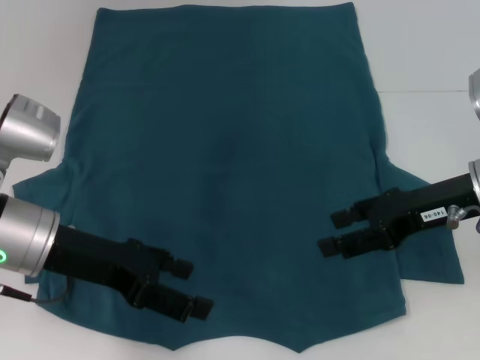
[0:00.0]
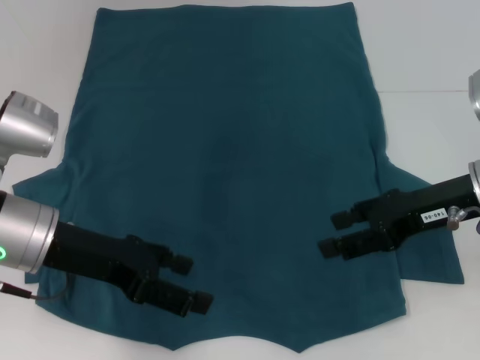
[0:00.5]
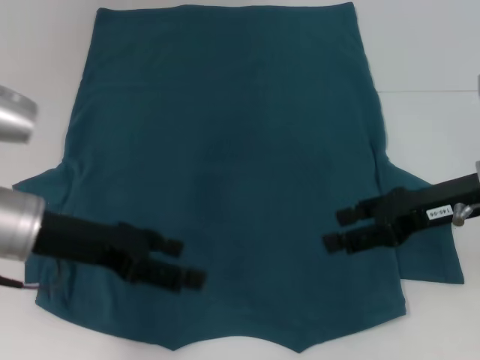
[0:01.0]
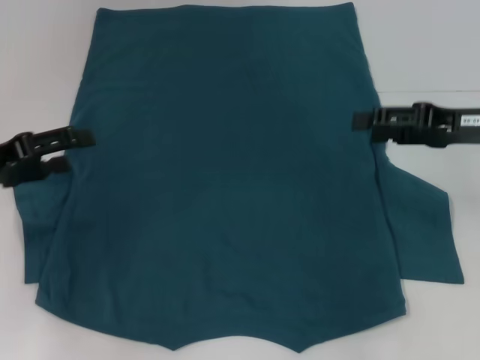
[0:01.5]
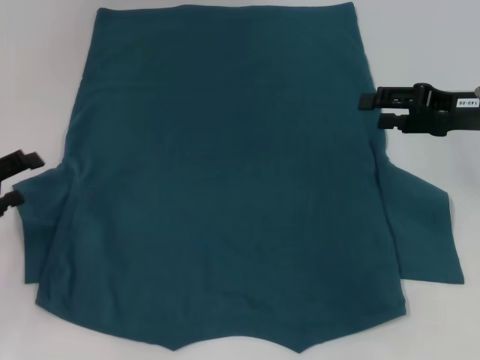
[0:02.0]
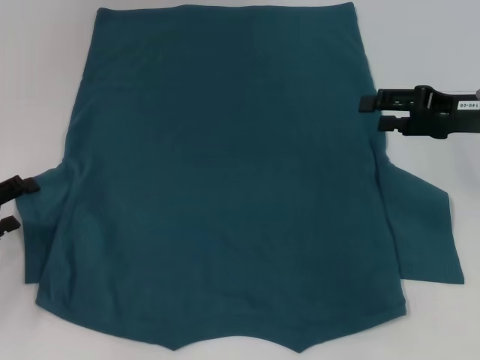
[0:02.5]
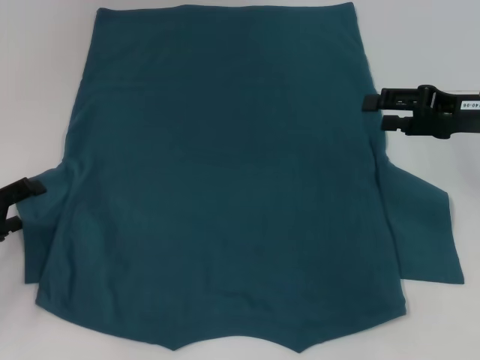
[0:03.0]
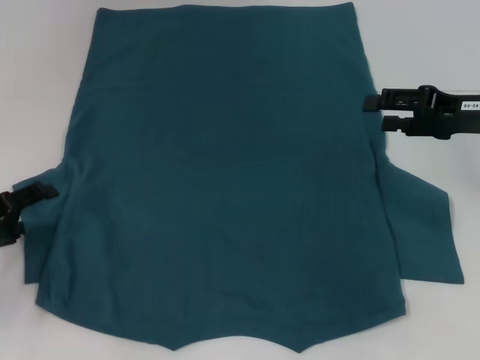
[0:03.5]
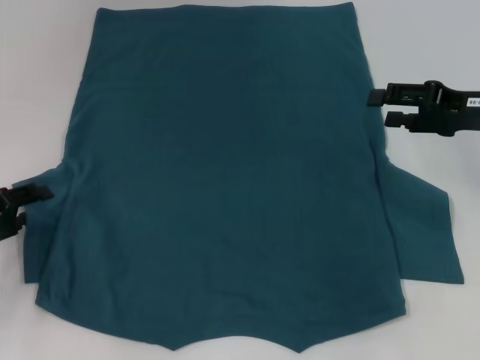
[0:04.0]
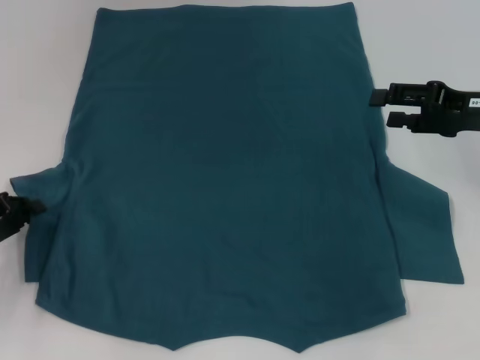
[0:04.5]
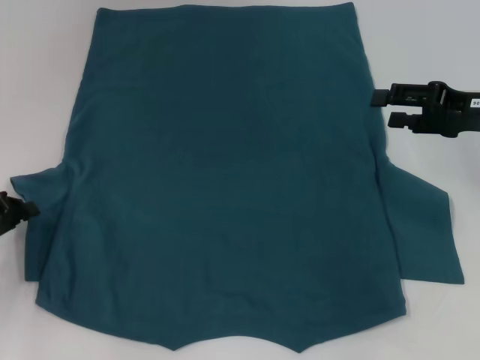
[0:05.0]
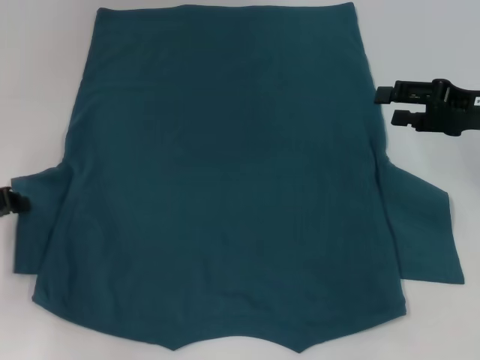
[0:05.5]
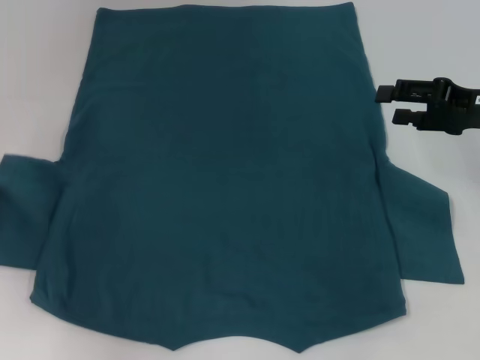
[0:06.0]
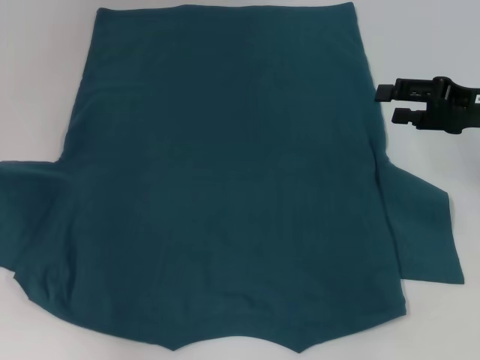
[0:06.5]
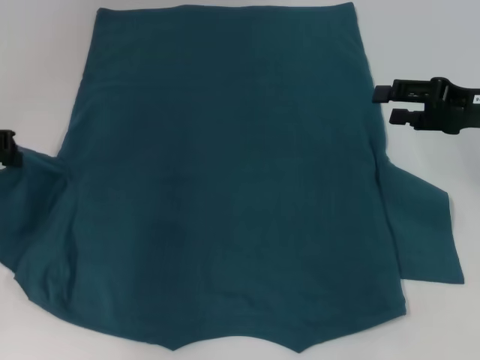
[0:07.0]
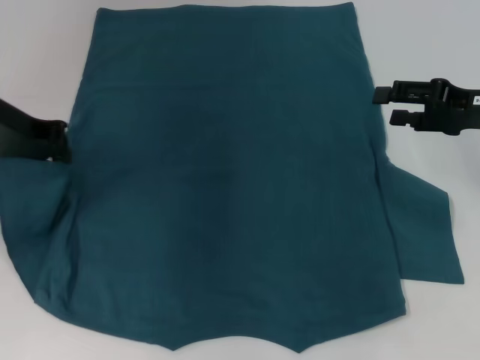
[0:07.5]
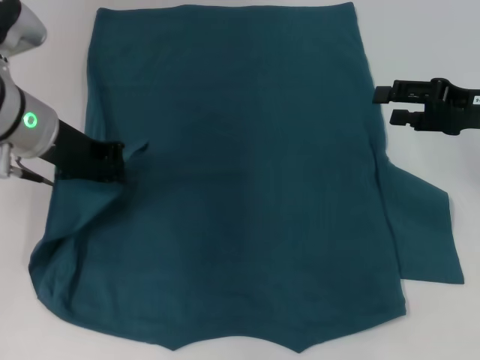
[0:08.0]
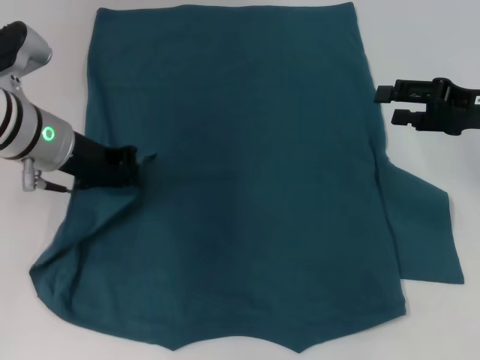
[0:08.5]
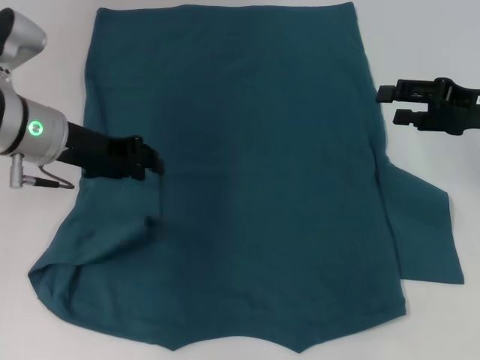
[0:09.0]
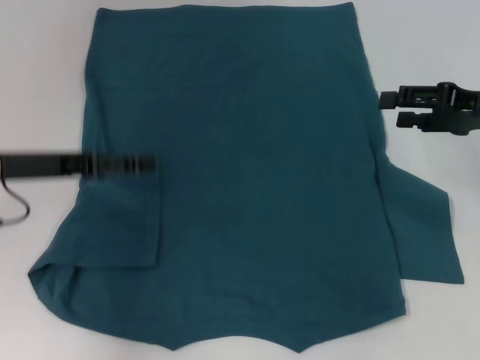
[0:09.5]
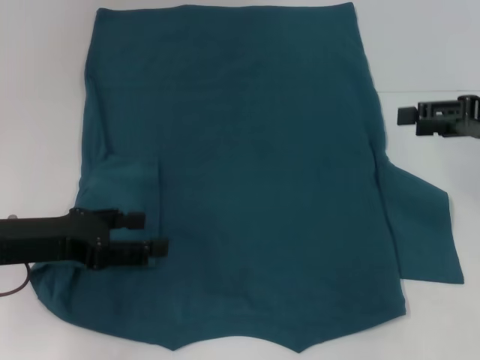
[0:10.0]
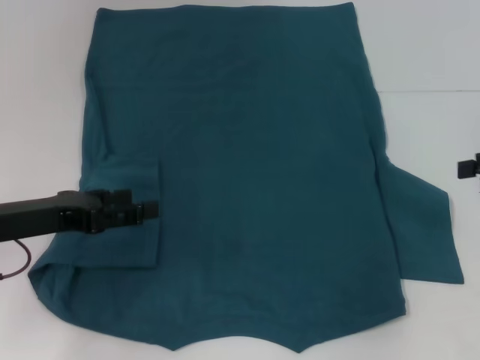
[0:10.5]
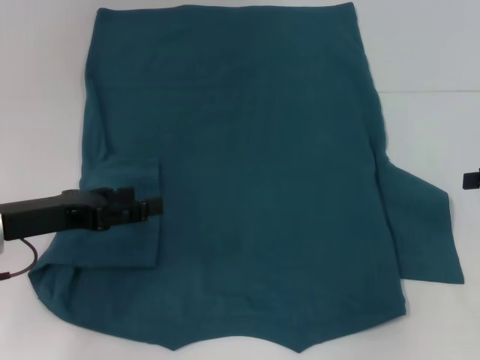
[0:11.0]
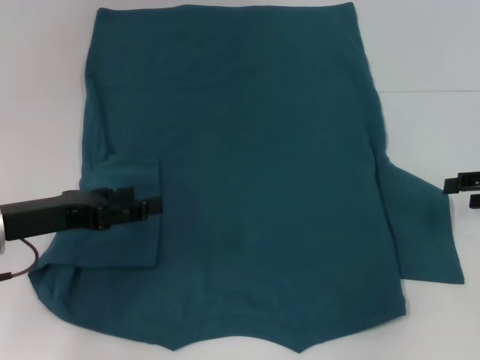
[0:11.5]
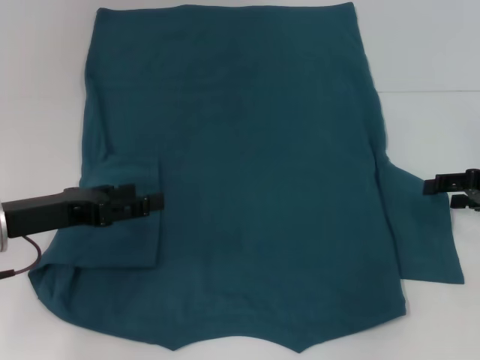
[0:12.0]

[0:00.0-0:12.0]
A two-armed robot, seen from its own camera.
Step, 0:00.0 to 0:09.0: Fold the bottom left sleeve with your left hand.
0:00.0 to 0:02.0: The right gripper goes some 10 cm forward and to the right, while the left gripper moves to the left, some 15 cm.
0:02.0 to 0:04.0: The grippers make only small movements.
0:04.0 to 0:06.0: The left gripper heads upward, covering approximately 5 cm, and closes its fingers.
0:06.0 to 0:08.0: The left gripper moves to the right, roughly 15 cm.
0:08.0 to 0:10.0: The left gripper moves backward, downward and to the left, approximately 15 cm, and opens its fingers.
0:10.0 to 0:12.0: The right gripper heads downward, covering about 10 cm.

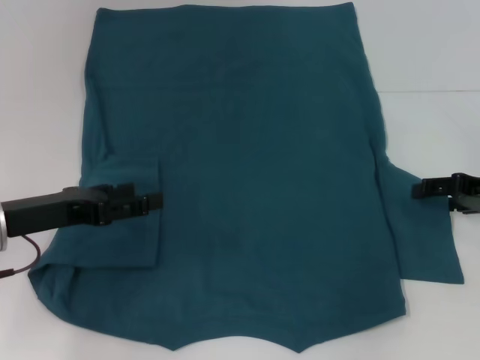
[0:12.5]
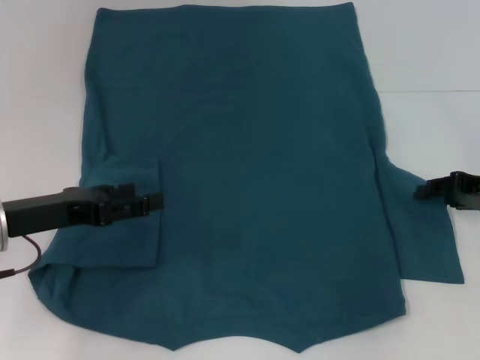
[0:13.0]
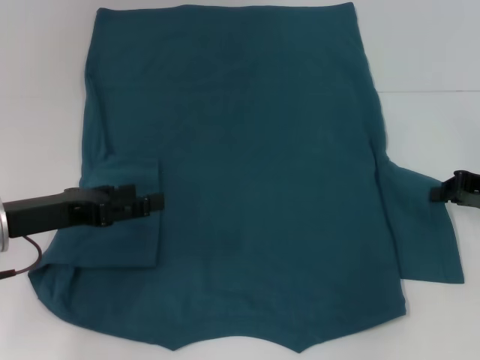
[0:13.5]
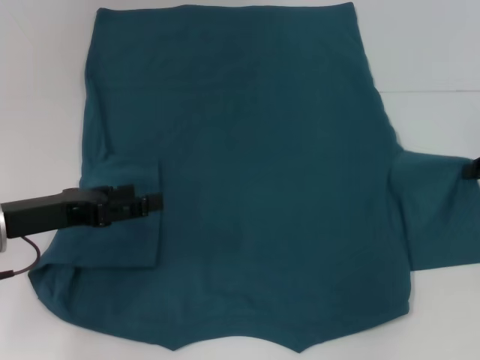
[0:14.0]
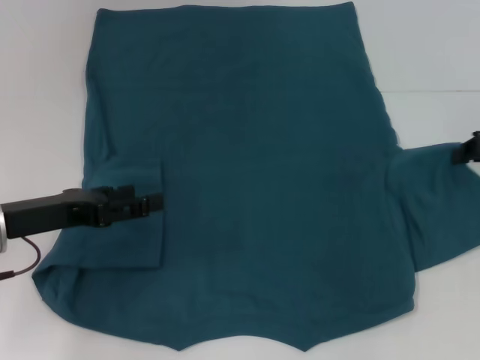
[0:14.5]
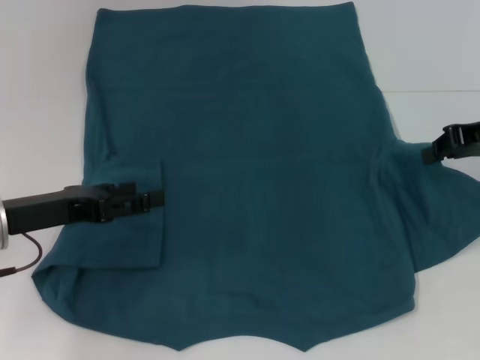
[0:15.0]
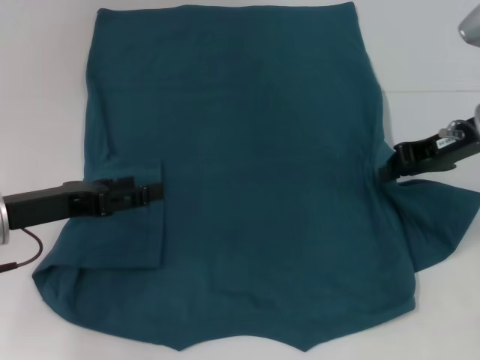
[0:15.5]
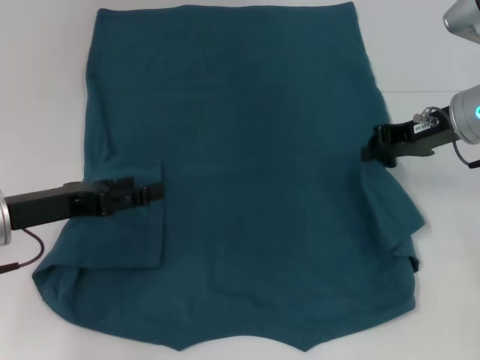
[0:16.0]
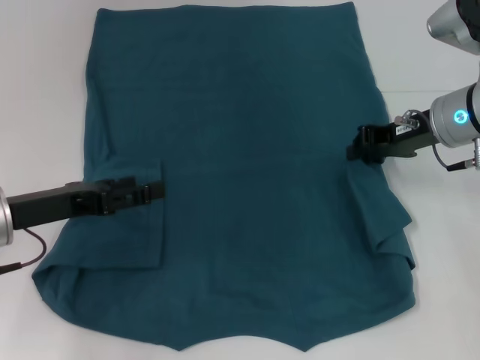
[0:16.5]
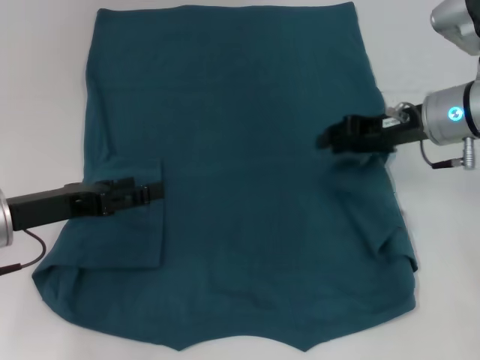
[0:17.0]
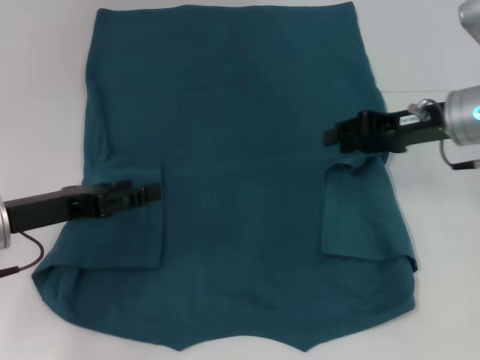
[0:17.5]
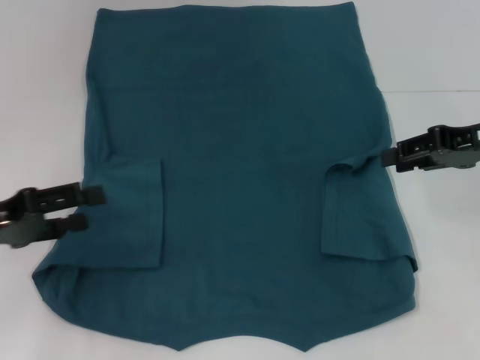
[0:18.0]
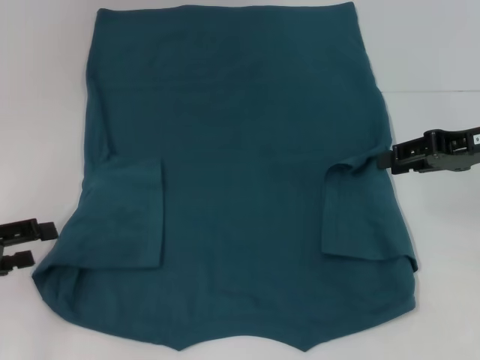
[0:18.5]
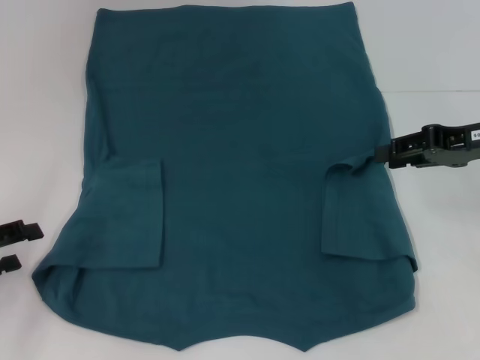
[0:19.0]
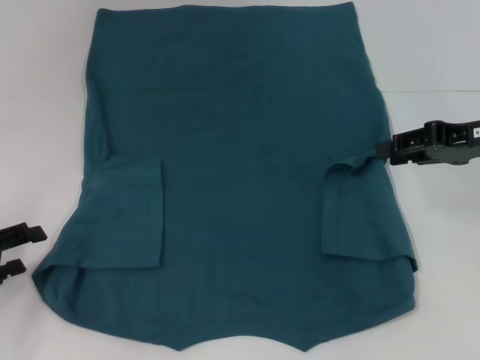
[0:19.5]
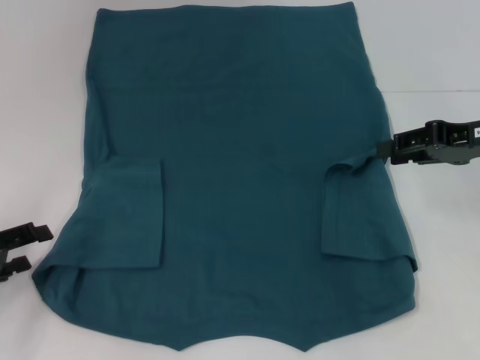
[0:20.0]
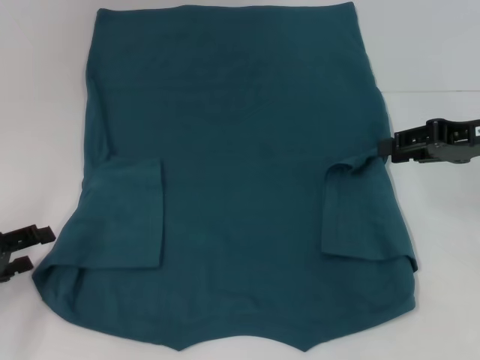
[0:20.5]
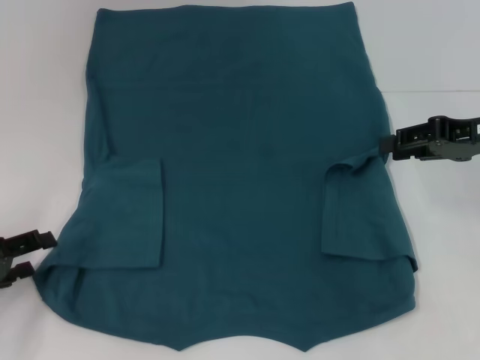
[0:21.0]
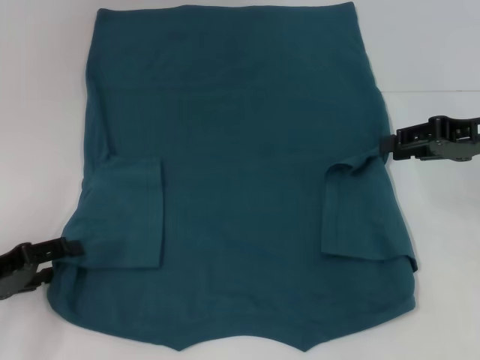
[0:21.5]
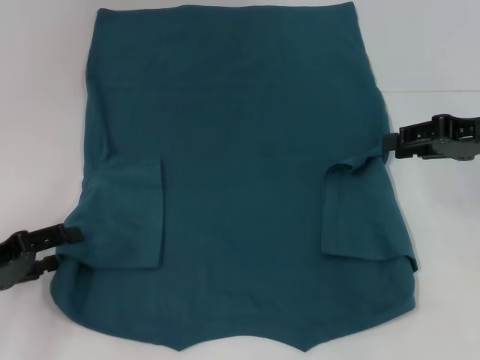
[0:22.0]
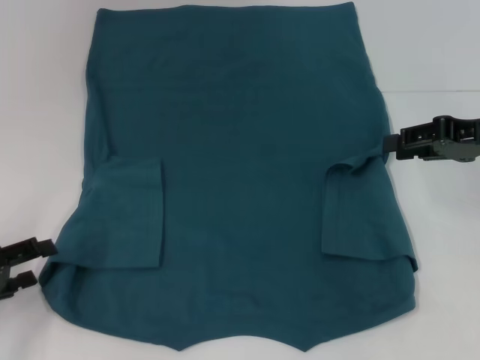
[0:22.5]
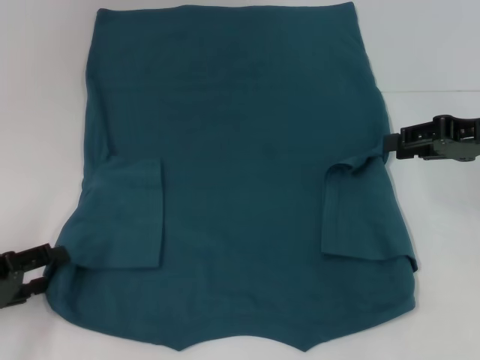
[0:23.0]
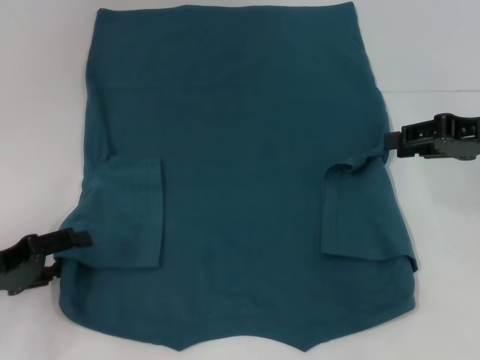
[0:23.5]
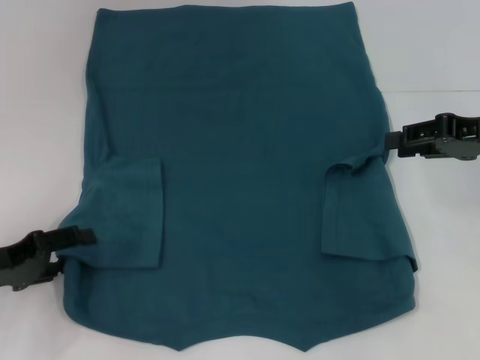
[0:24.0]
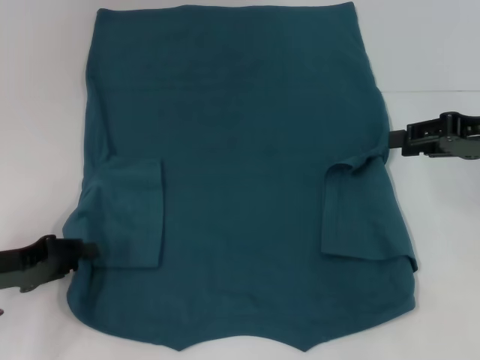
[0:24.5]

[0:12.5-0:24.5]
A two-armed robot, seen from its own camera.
Step, 0:12.5 to 0:17.0: Fold the bottom right sleeve to the right.
0:12.5 to 0:14.5: The right gripper moves upward, roughly 5 cm, and closes its fingers.
0:14.5 to 0:16.5: The right gripper travels to the left by roughly 10 cm.
0:16.5 to 0:18.5: The right gripper moves to the right and backward, some 10 cm, while the left gripper moves to the left, about 10 cm.
0:18.5 to 0:22.5: There are only small adjustments of the grippers.
0:22.5 to 0:24.5: The left gripper shifts by approximately 5 cm.

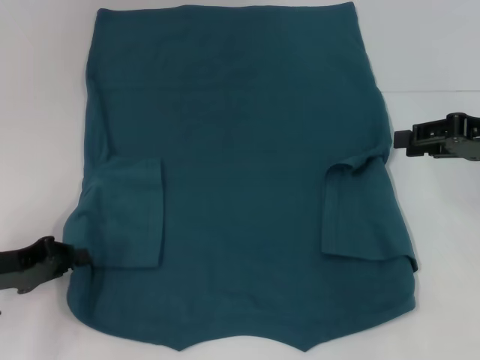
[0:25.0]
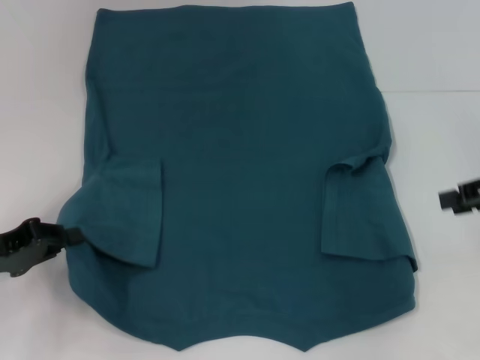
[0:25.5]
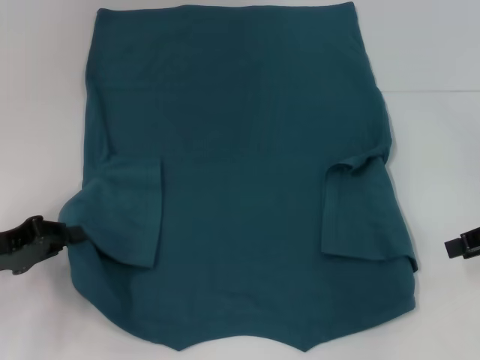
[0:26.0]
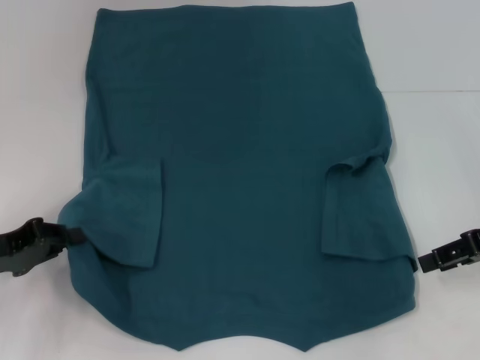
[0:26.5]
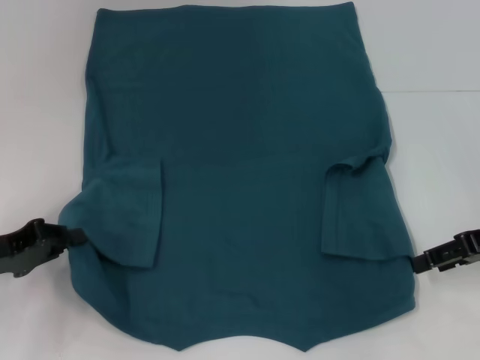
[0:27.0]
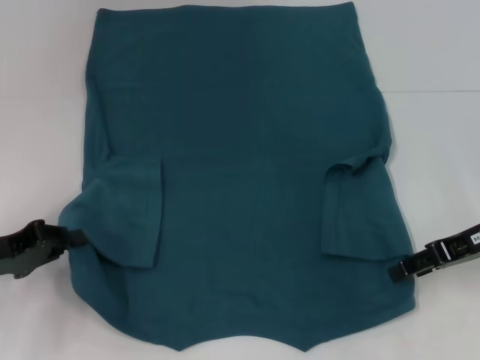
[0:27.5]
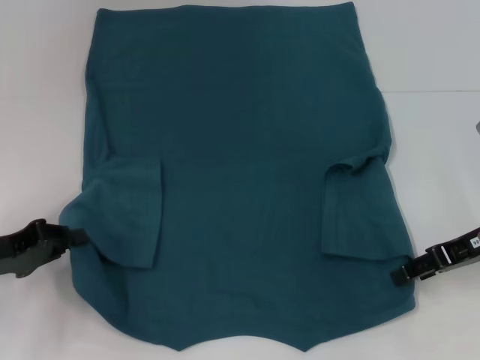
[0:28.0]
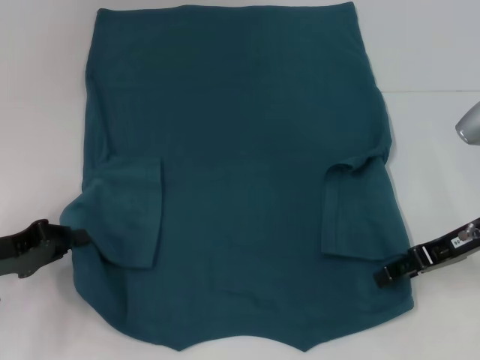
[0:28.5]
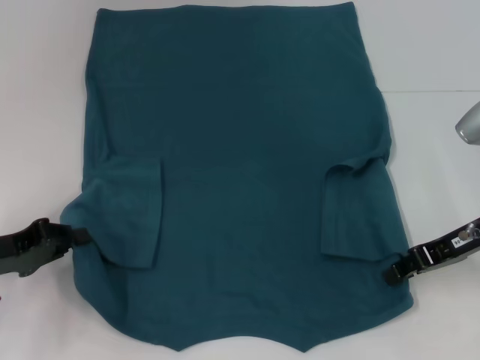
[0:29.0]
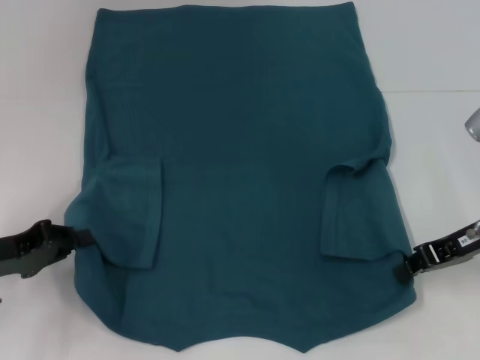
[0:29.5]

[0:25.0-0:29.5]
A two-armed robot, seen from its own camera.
0:25.0 to 0:27.0: The right gripper shifts by some 5 cm.
0:27.0 to 0:29.5: The right gripper closes up.
